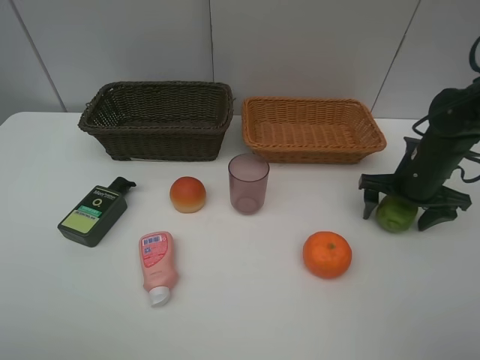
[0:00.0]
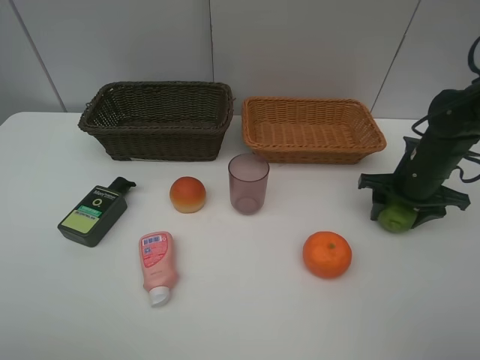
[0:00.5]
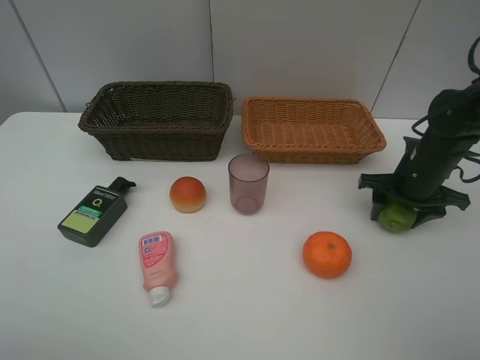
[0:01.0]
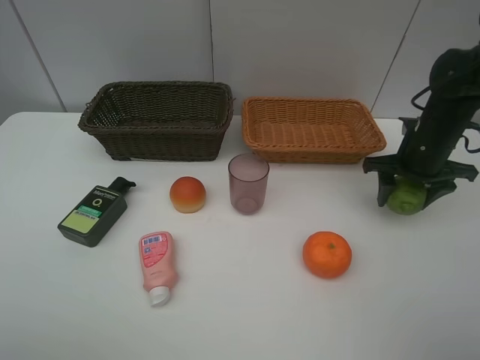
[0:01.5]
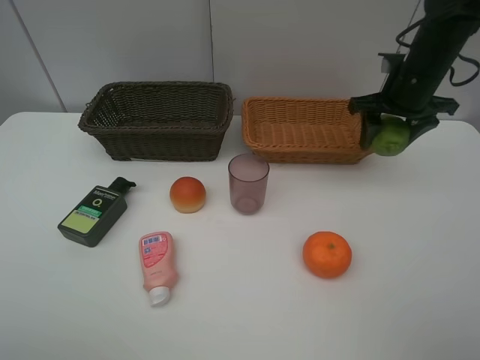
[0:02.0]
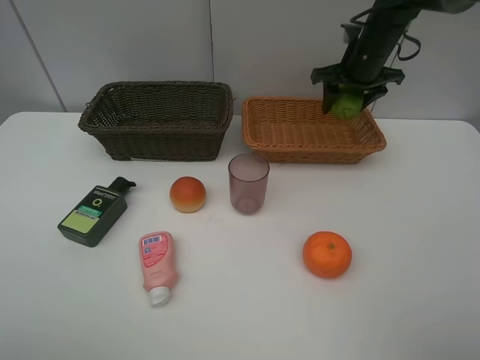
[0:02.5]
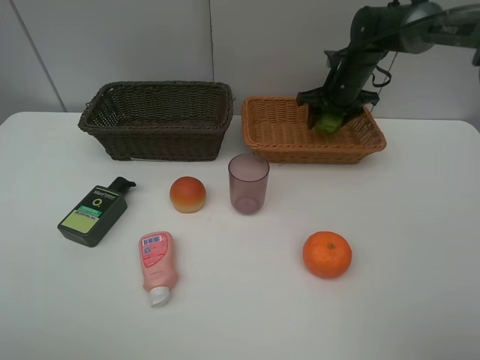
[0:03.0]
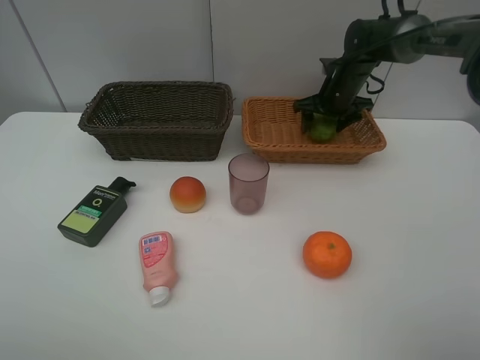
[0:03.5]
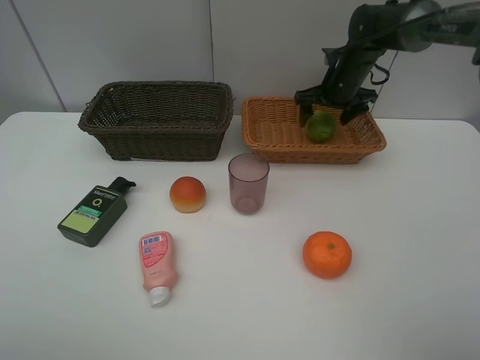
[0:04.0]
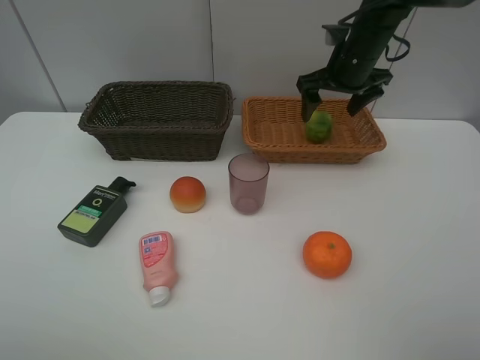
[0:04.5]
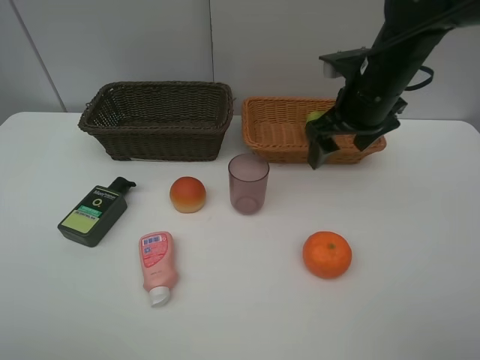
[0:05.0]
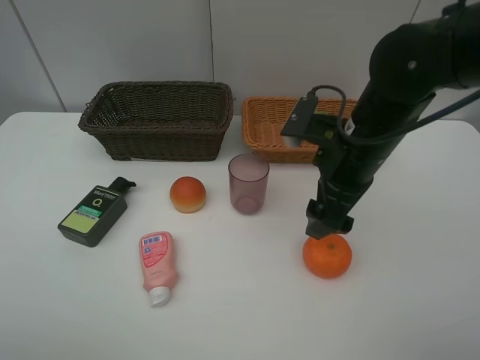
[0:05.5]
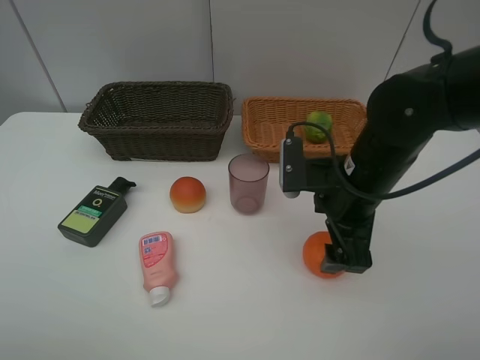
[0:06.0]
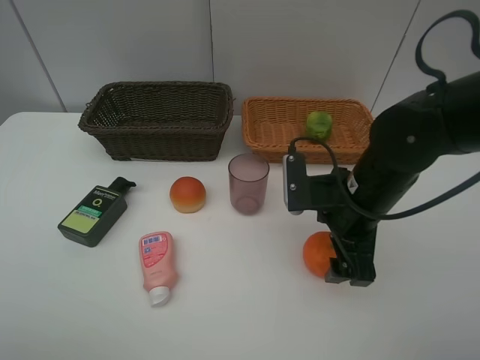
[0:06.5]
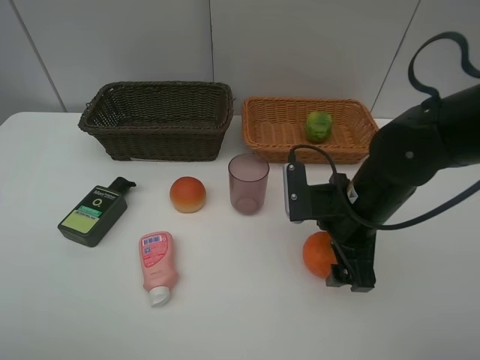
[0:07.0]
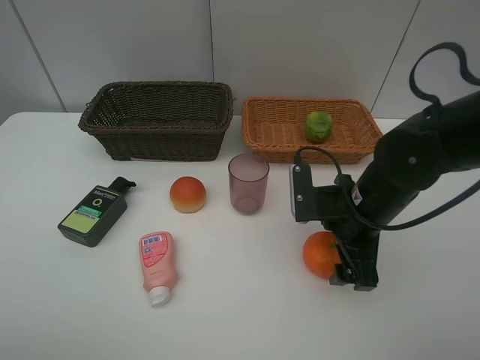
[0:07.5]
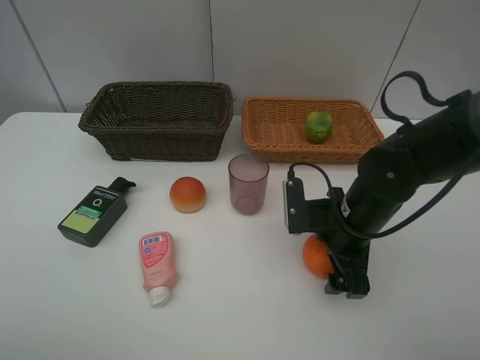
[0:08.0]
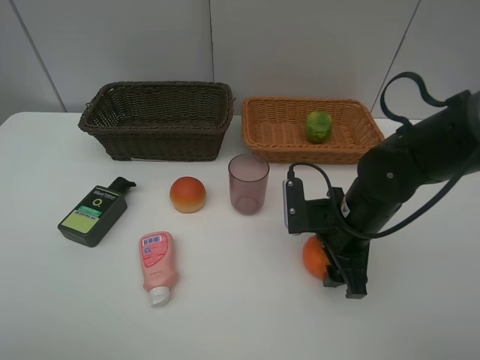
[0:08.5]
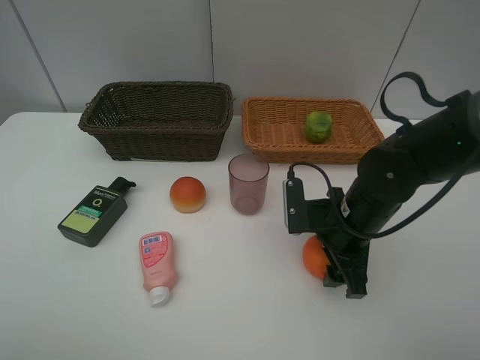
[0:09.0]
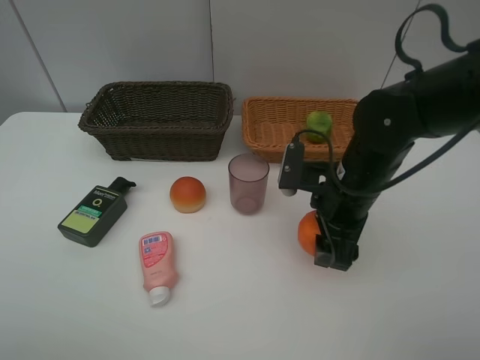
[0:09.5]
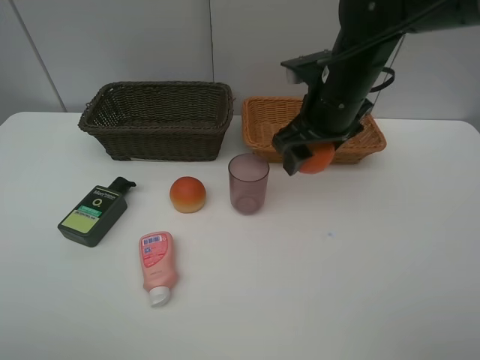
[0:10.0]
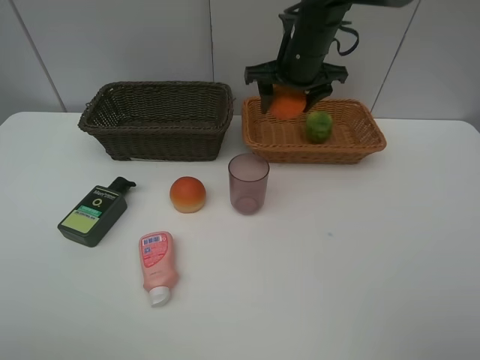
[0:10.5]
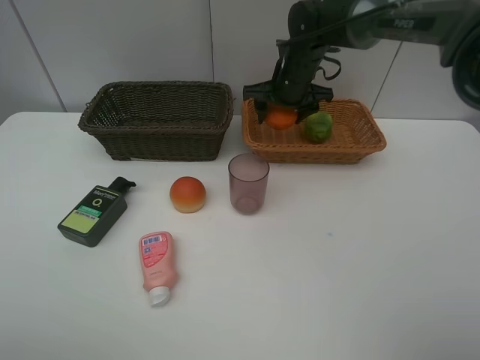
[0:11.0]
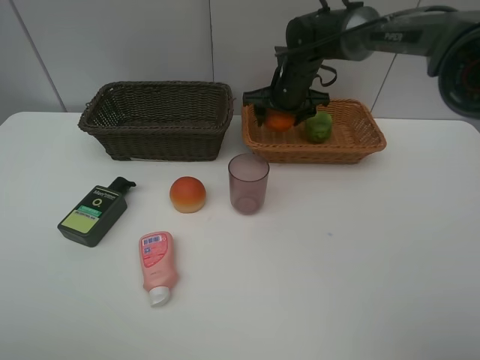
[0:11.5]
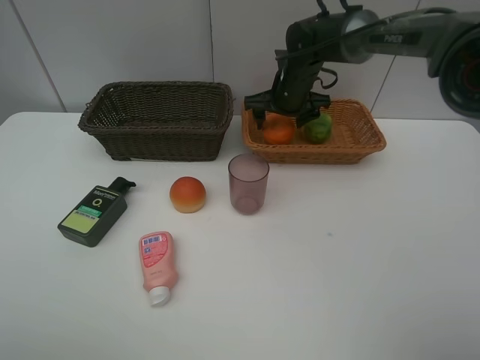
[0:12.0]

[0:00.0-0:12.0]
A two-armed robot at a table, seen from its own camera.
Task of the whole recording: place multiple objects separately in different baskets.
0:00.0 to 0:02.0: The right gripper travels upward and forward by some 15 cm, and closes up.
0:02.0 to 0:04.0: The right gripper moves forward, downward and to the left, approximately 15 cm, and opens up.
0:04.0 to 0:06.0: The right gripper moves backward, approximately 25 cm.
0:06.0 to 0:08.0: The right gripper travels downward by approximately 5 cm.
0:08.0 to 0:10.0: The right gripper goes some 15 cm upward and forward, and closes.
0:10.0 to 0:12.0: The right gripper heads forward and downward, covering roughly 15 cm, and opens.

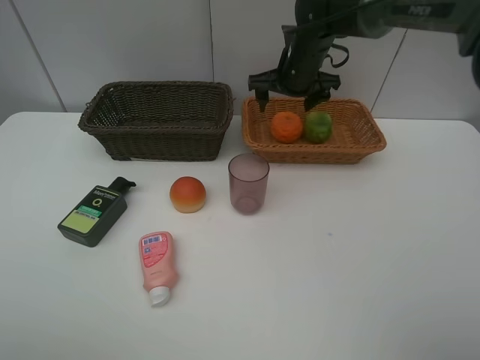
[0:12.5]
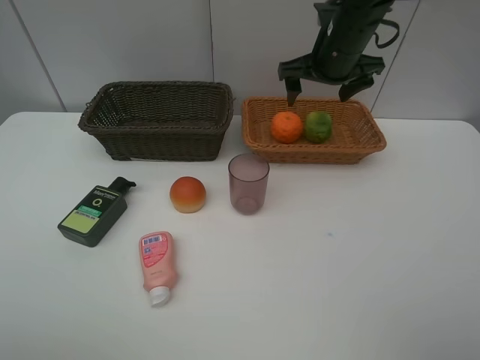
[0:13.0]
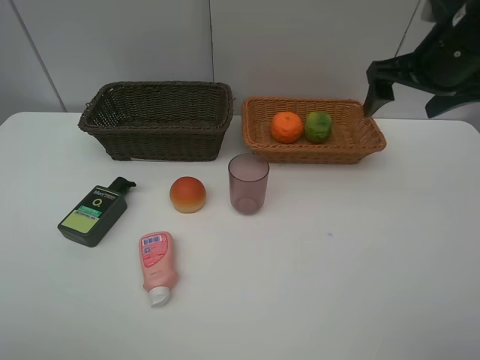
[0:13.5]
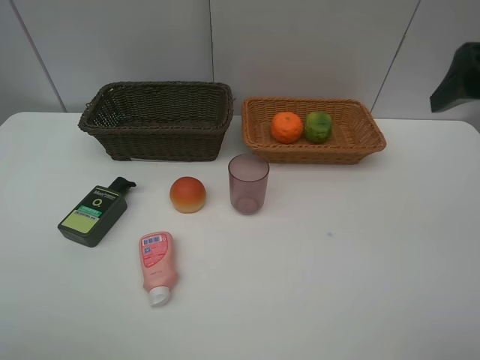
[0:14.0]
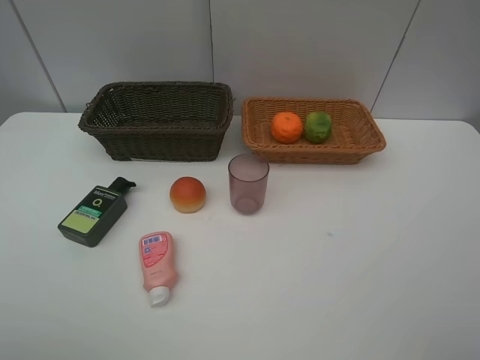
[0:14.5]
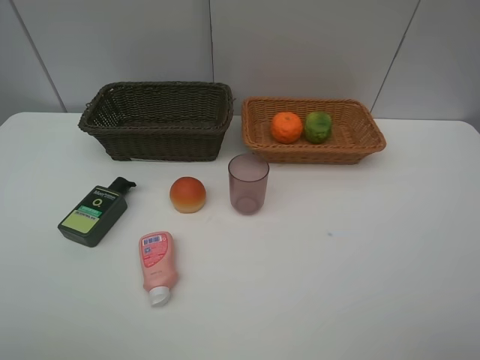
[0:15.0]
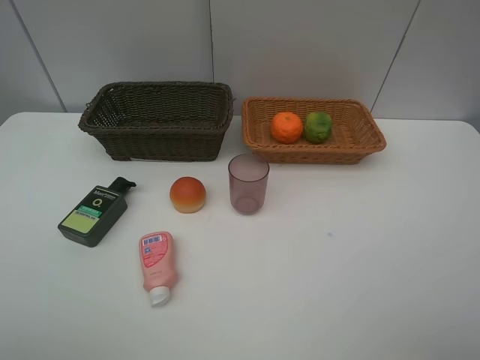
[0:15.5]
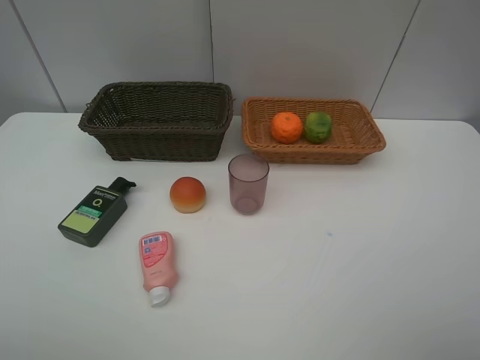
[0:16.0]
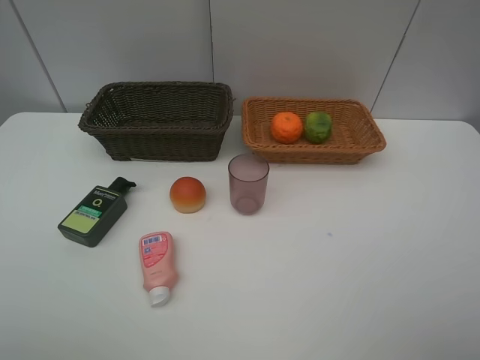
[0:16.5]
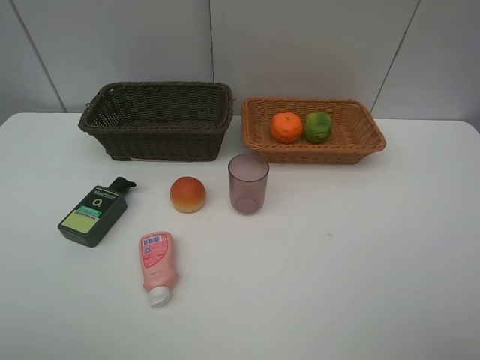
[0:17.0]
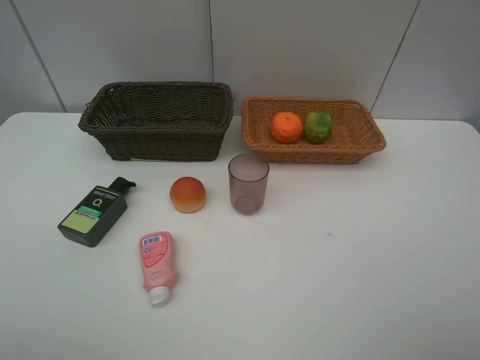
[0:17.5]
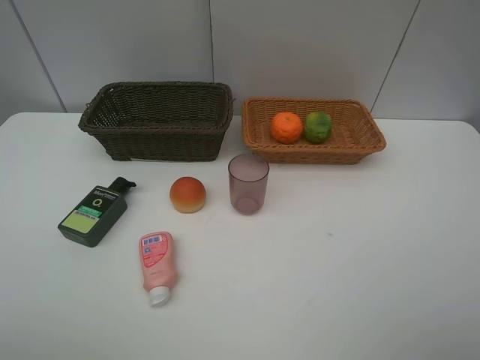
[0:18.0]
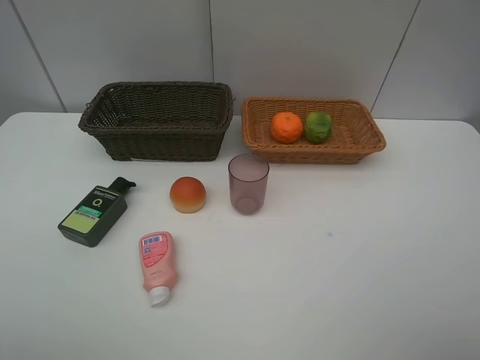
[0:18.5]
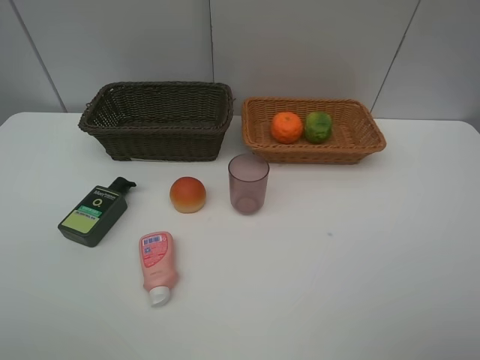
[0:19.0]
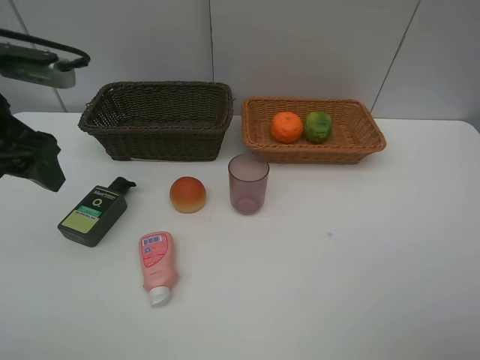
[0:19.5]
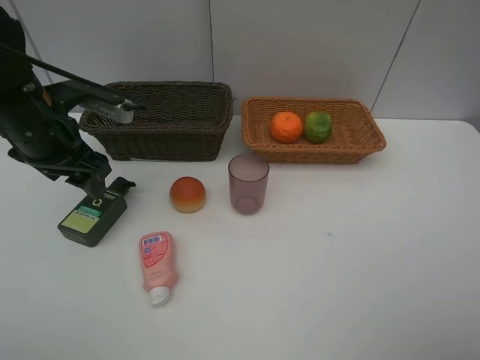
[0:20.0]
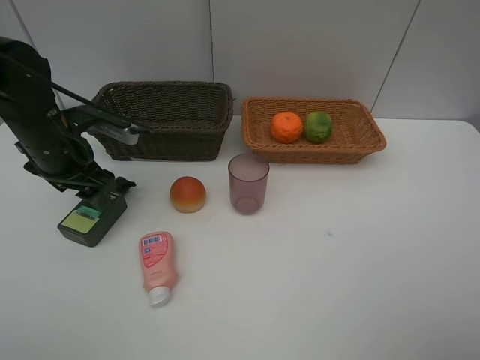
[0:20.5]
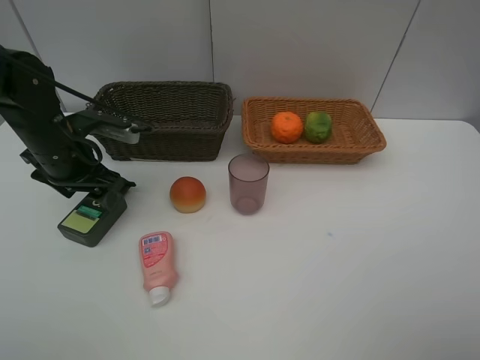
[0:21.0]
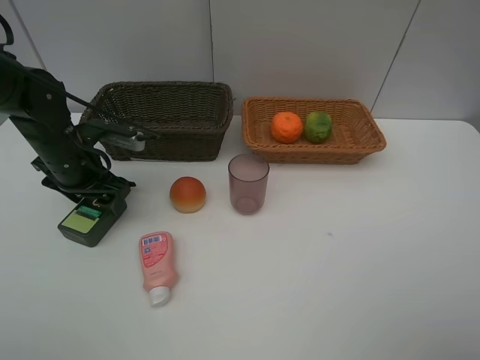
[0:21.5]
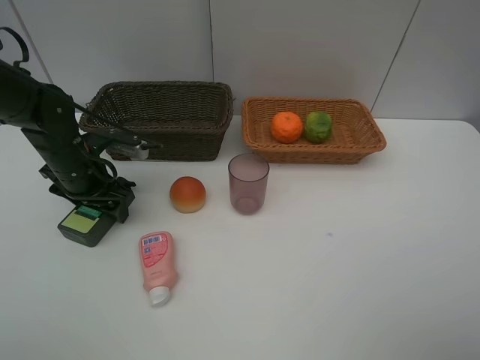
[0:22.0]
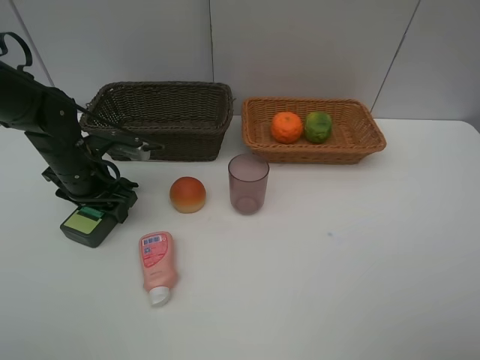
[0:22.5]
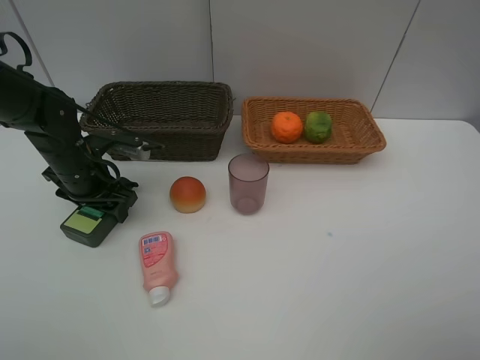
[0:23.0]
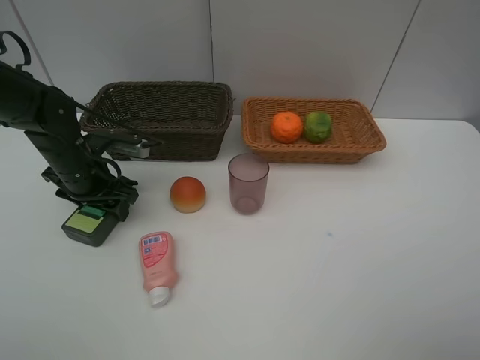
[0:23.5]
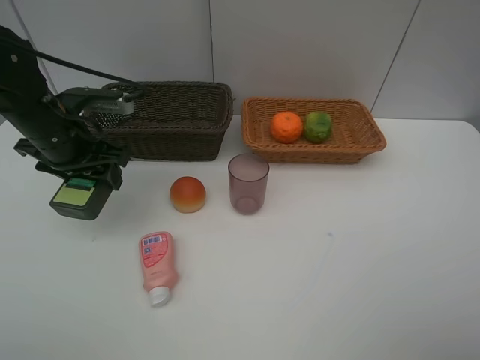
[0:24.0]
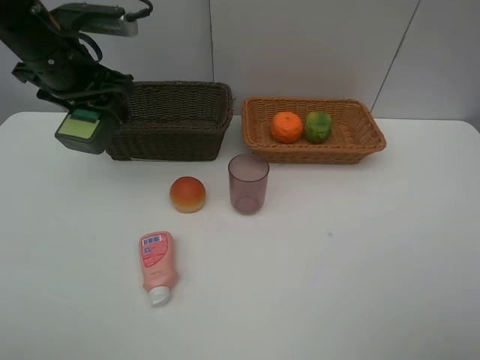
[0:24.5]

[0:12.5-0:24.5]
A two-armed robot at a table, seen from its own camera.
Task of the whole recording: place multiple objects separately in different baskets.
0:12.5 to 0:14.5: The right gripper shifts some 40 cm backward and to the right.
0:18.5 to 0:20.5: The left gripper is displaced forward and downward by roughly 35 cm.
0:20.5 to 0:22.5: The left gripper shifts about 5 cm downward.
0:22.5 to 0:24.5: The left gripper travels upward by about 15 cm.

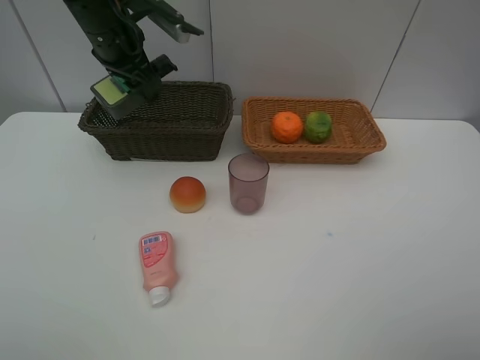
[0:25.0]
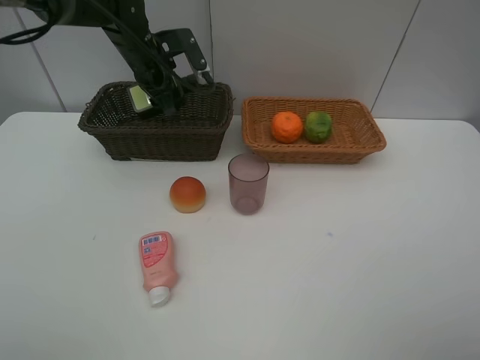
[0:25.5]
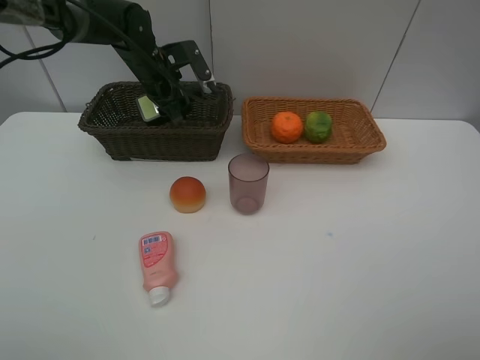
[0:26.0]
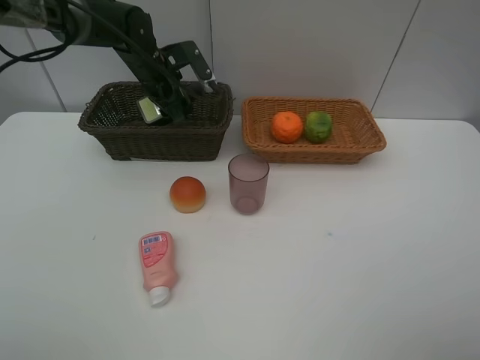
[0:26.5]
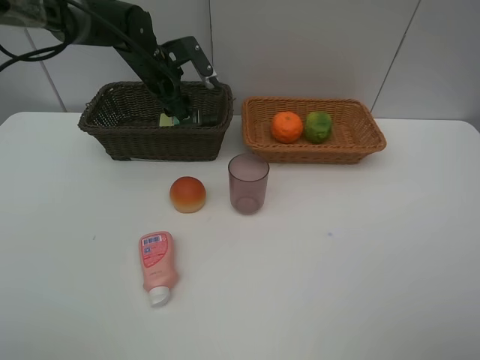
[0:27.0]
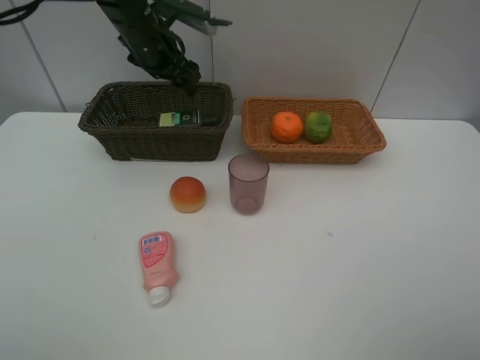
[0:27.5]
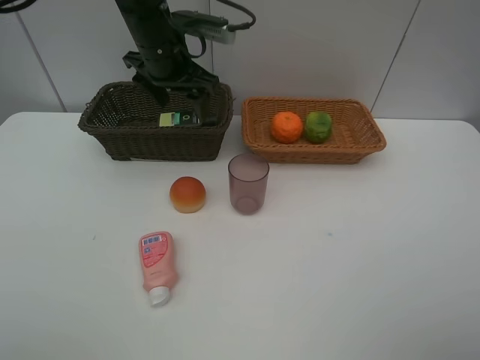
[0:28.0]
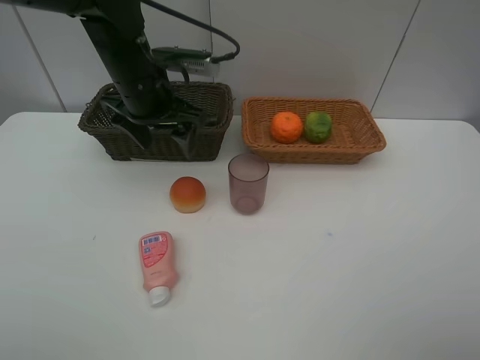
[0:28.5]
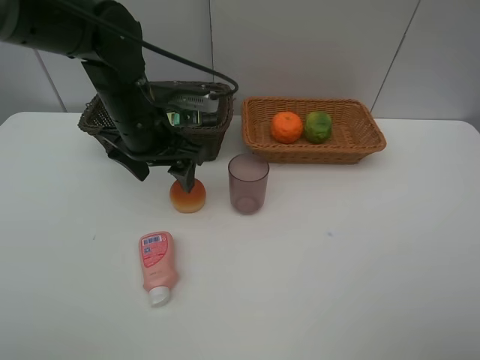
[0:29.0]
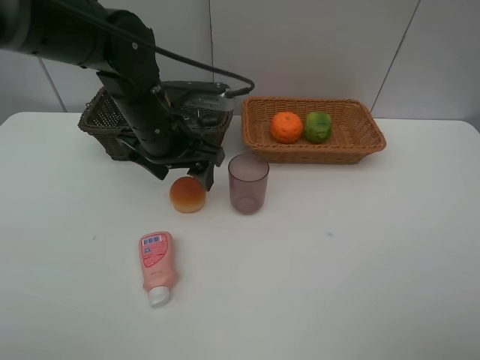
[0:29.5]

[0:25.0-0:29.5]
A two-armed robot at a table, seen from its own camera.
Task of the whole recording: place multiple objects separately in different baskets.
0:25.0 to 0:27.0: The left gripper travels downward and forward by some 10 cm.
0:27.0 to 0:29.5: The left gripper shifts roughly 15 cm backward.
